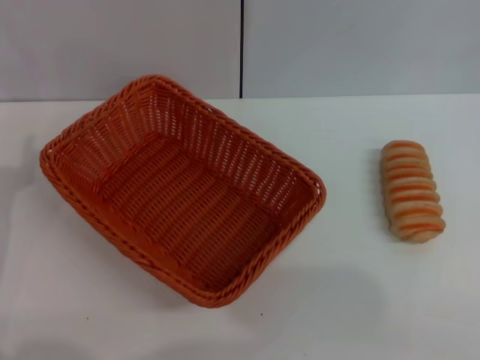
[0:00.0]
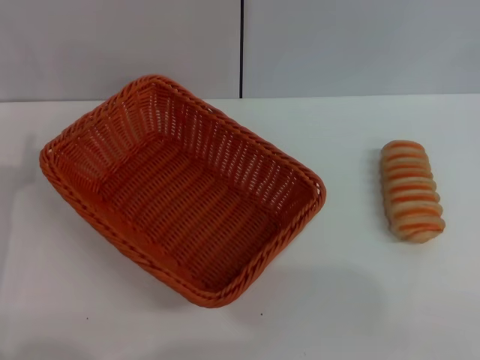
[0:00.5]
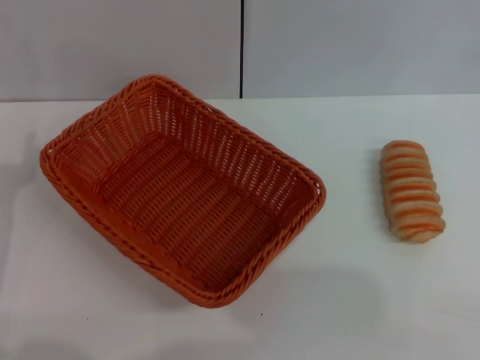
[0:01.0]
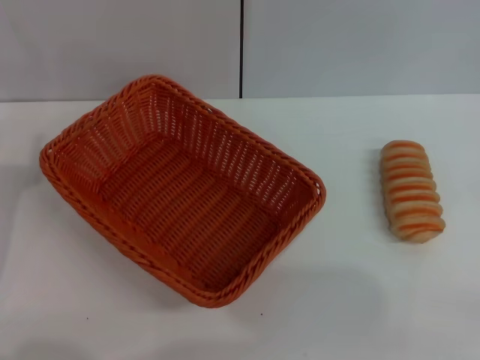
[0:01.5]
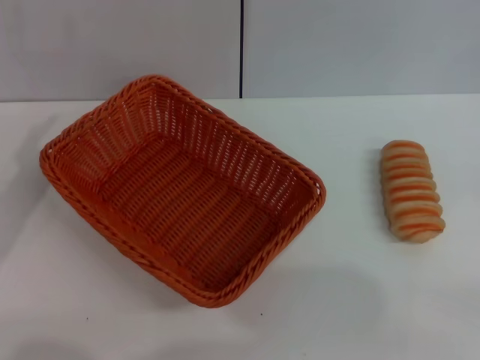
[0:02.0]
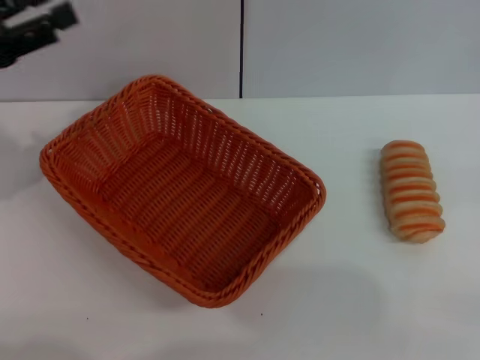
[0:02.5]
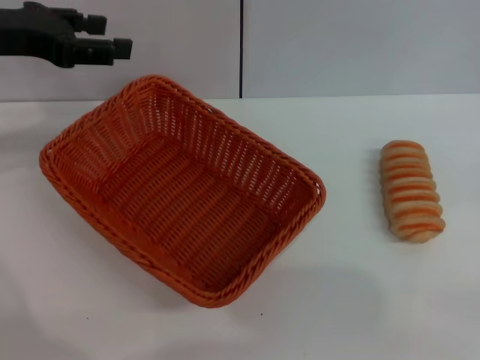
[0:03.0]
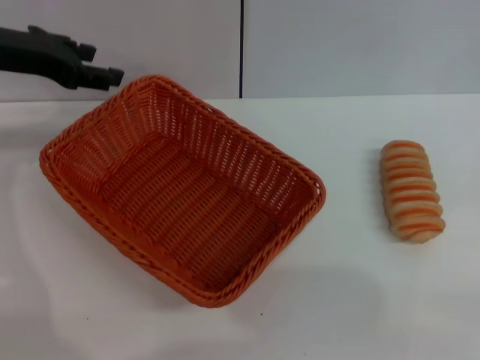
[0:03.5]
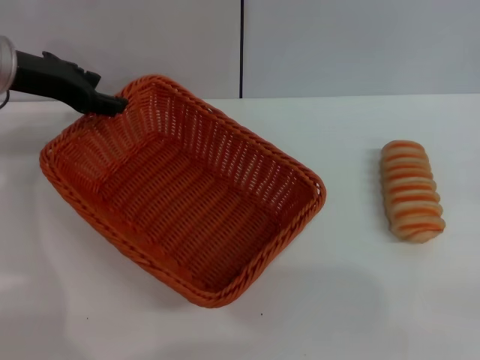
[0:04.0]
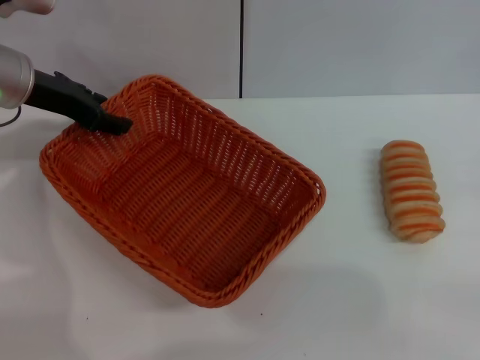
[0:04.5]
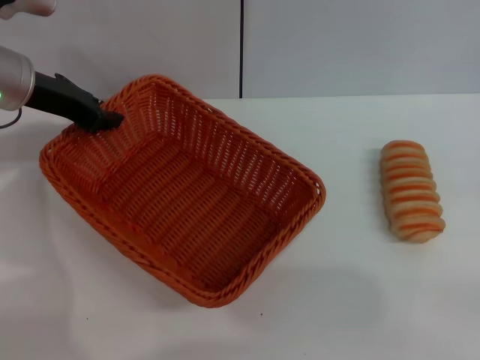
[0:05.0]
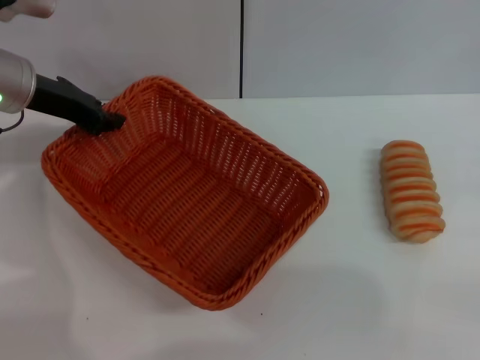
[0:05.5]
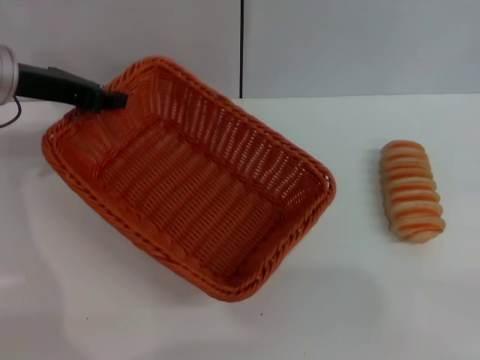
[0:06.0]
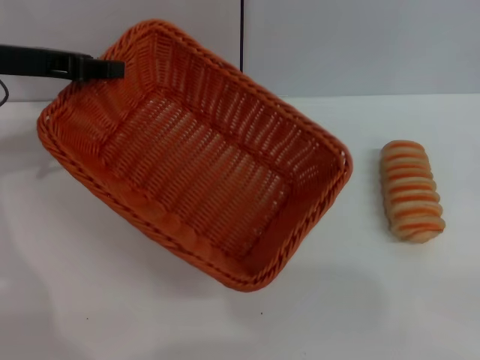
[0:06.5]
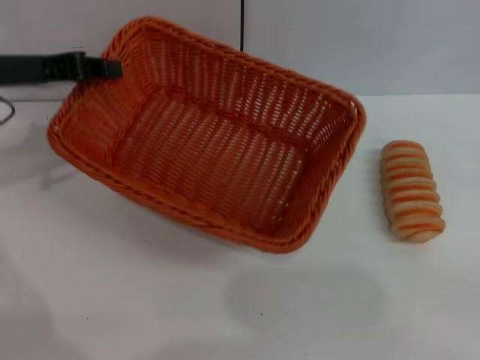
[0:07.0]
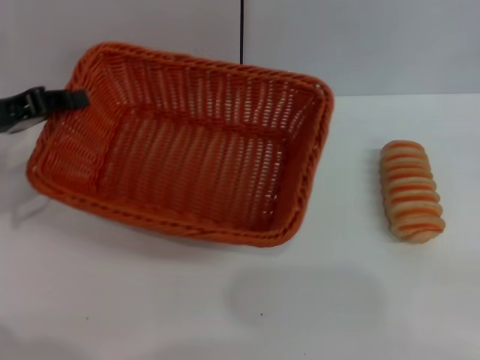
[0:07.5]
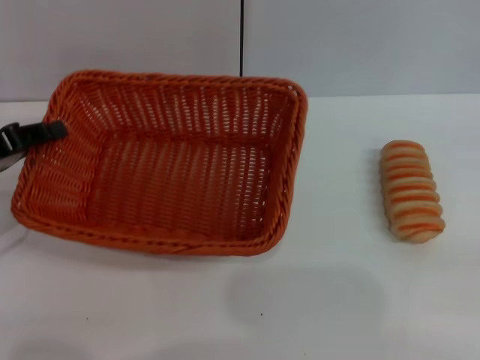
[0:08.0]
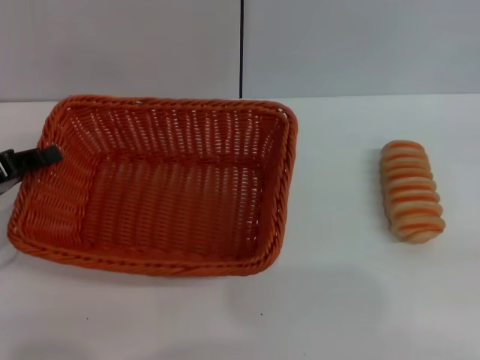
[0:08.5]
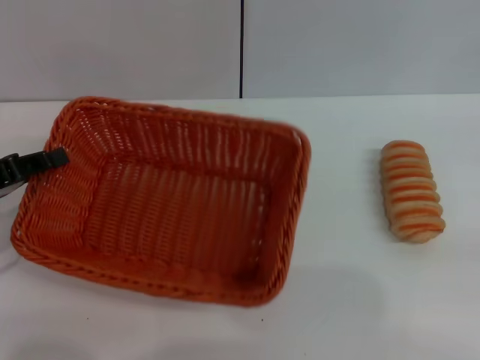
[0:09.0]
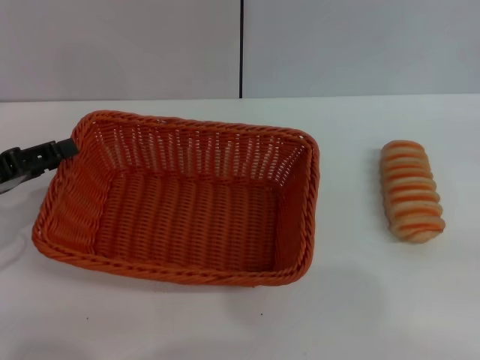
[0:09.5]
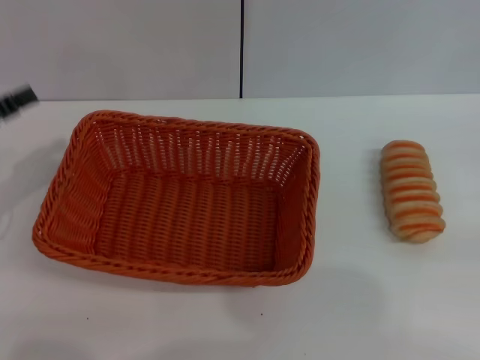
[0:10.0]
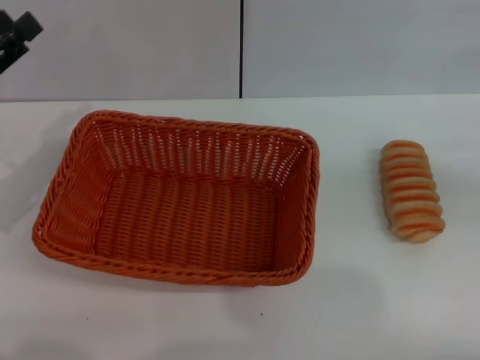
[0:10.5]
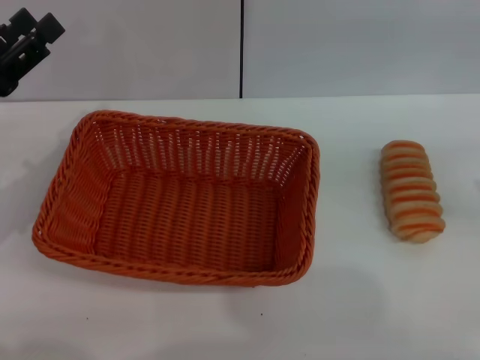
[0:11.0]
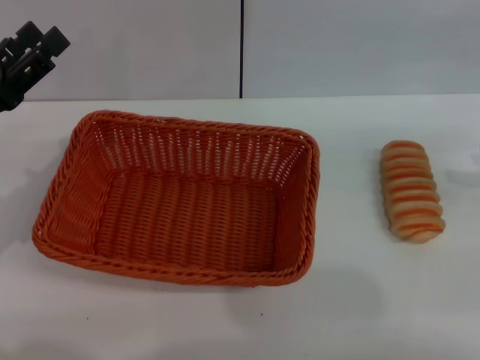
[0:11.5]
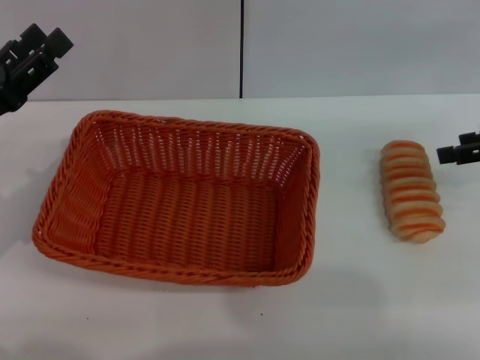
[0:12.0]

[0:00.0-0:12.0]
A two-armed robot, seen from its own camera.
Step, 0:00.0 to 0:07.5: Pick up the light basket with the right gripper.
Step, 0:08.0 to 0:10.0: Place the light basket in the center of view with the right gripper.
0:02.0 to 0:04.0: The left gripper is displaced forward and upward by roughly 20 cm.
0:04.0 to 0:06.0: The left gripper closes up.
0:06.0 to 0:08.0: The left gripper heads backward, to the left and downward, covering some 15 cm.
0:08.0 to 0:10.0: The left gripper opens up.
0:10.0 to 0:12.0: The left gripper moves to the right, about 5 cm, while the right gripper goes about 15 cm to the left and forward.

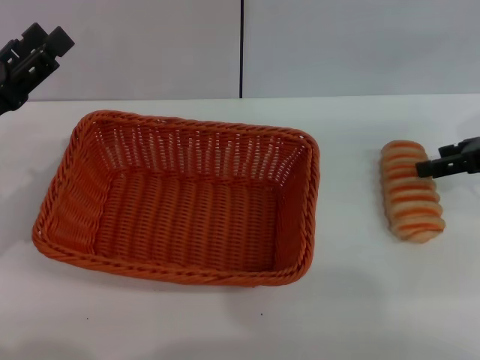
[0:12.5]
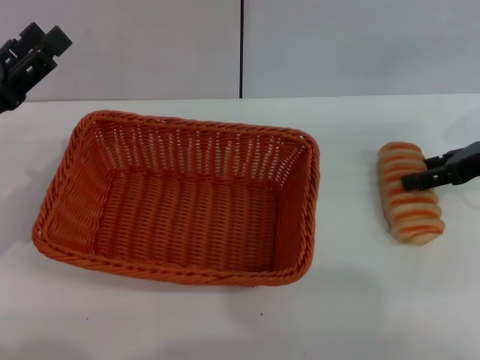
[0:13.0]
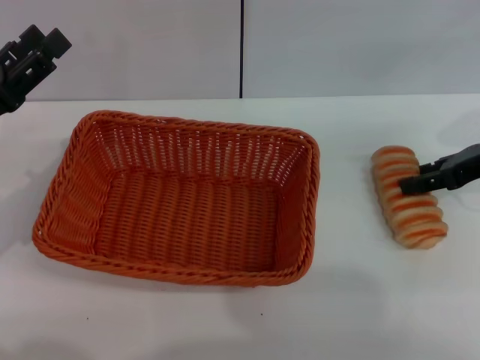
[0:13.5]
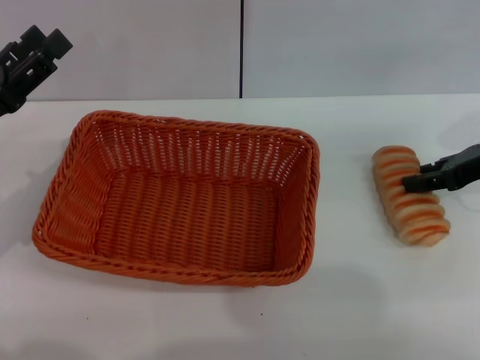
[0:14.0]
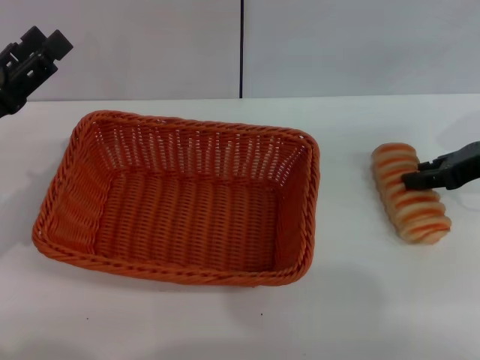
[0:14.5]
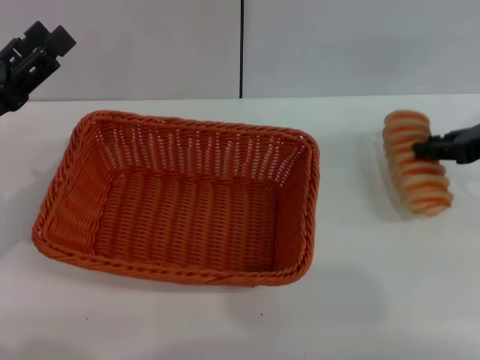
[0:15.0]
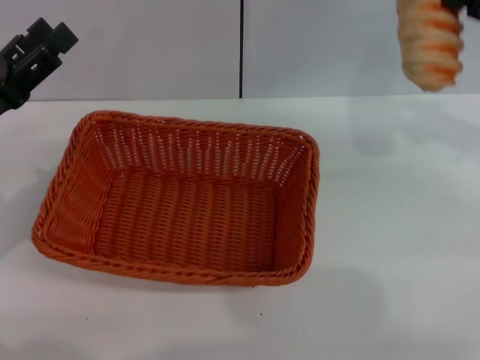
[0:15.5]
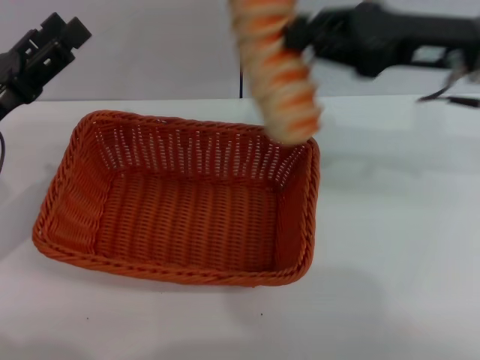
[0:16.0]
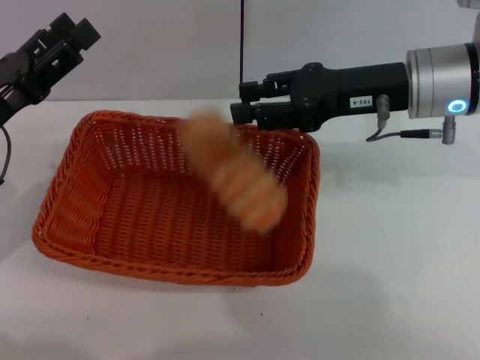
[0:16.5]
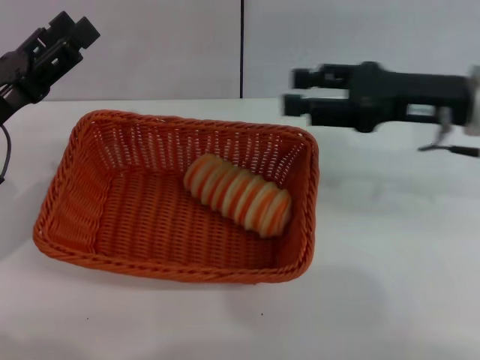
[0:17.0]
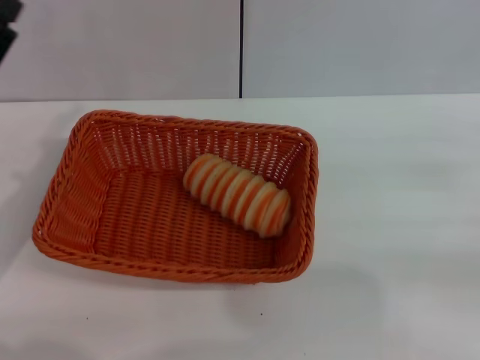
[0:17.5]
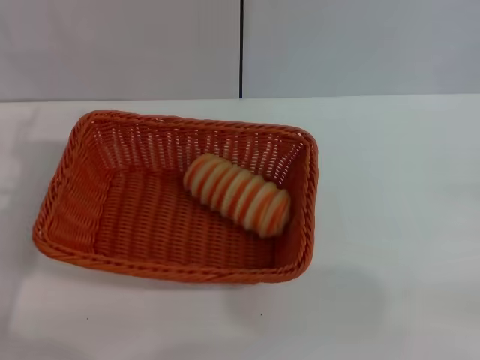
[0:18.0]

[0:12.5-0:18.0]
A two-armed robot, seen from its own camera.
0:12.5 to 0:14.5: The right gripper closes up.
0:14.5 to 0:16.0: The right gripper goes approximately 15 cm to the left and upward.
0:16.0 to 0:18.0: The right gripper is displaced to the right, backward and downward by about 30 cm, and opens its fingers.
